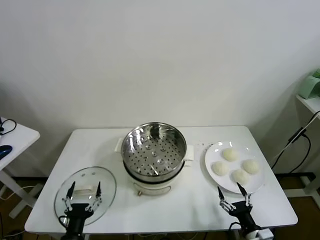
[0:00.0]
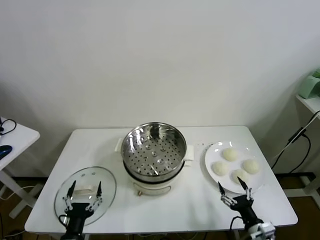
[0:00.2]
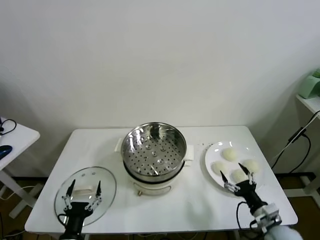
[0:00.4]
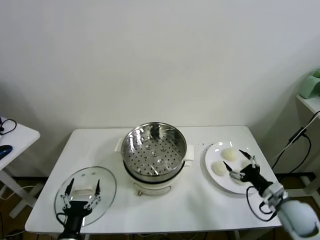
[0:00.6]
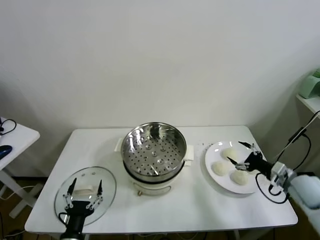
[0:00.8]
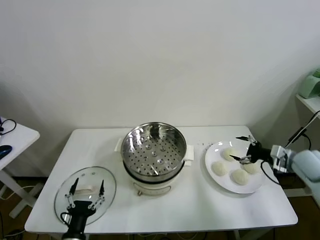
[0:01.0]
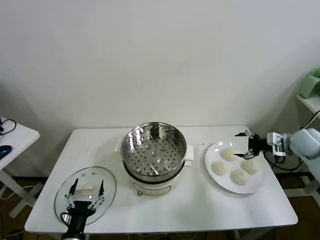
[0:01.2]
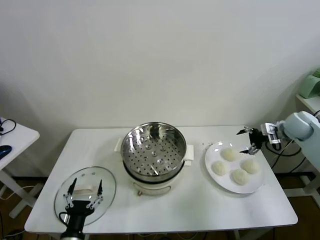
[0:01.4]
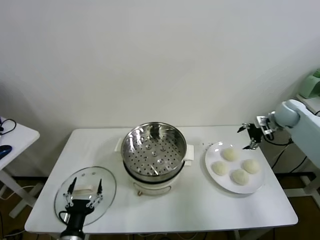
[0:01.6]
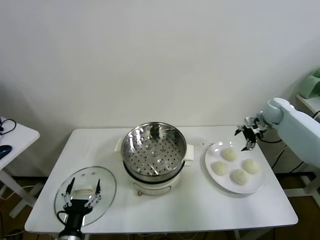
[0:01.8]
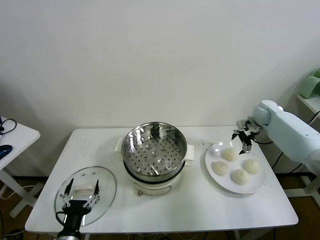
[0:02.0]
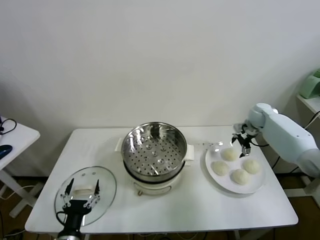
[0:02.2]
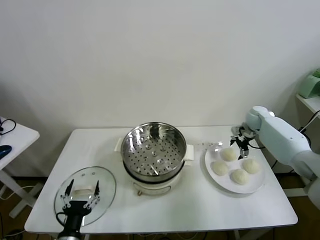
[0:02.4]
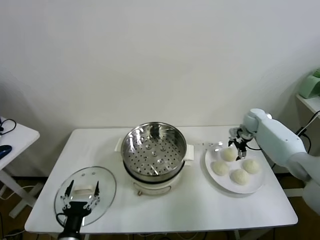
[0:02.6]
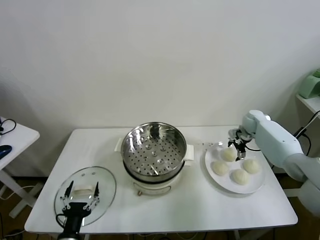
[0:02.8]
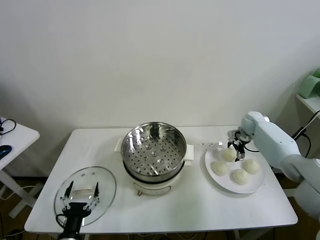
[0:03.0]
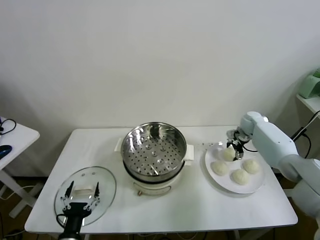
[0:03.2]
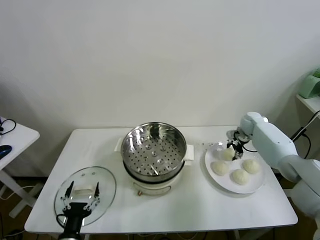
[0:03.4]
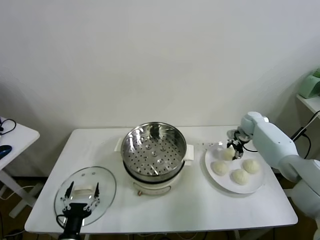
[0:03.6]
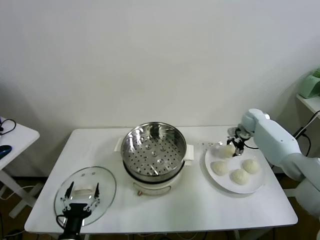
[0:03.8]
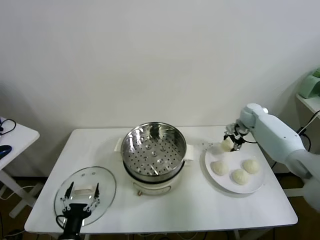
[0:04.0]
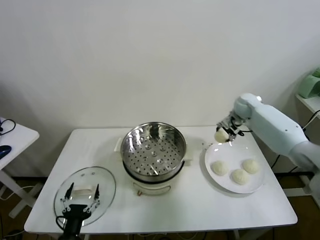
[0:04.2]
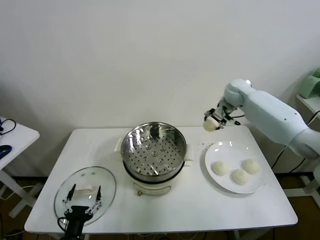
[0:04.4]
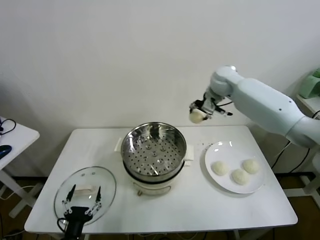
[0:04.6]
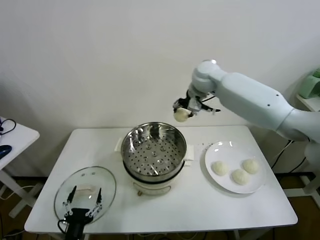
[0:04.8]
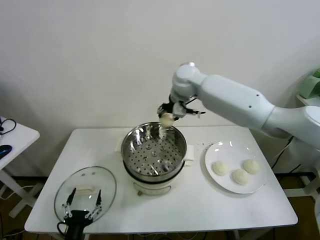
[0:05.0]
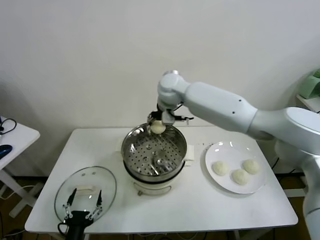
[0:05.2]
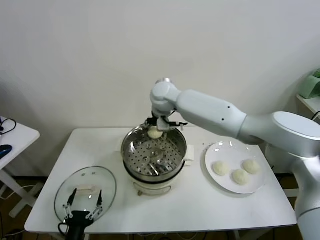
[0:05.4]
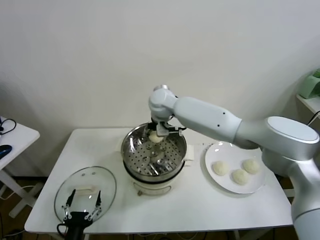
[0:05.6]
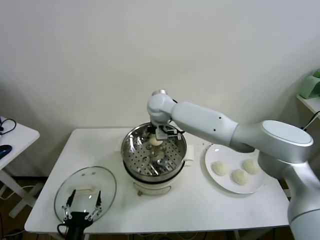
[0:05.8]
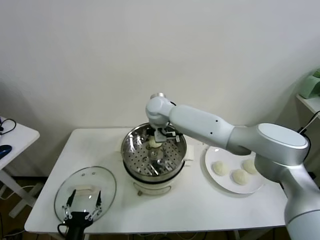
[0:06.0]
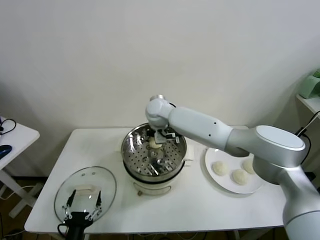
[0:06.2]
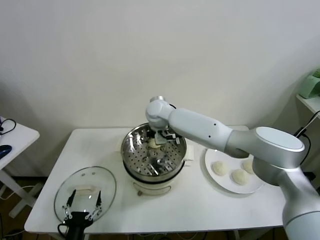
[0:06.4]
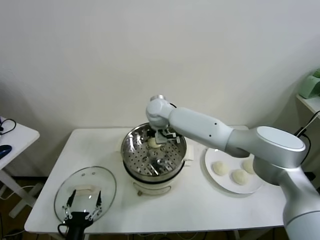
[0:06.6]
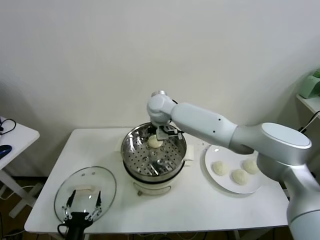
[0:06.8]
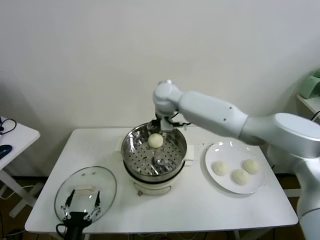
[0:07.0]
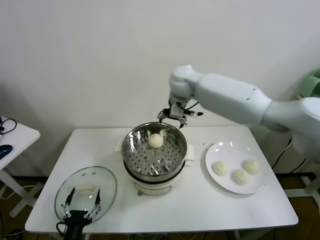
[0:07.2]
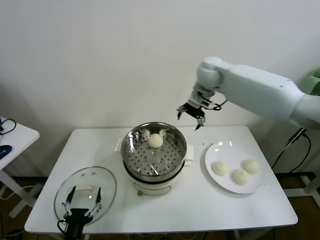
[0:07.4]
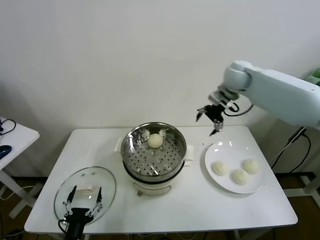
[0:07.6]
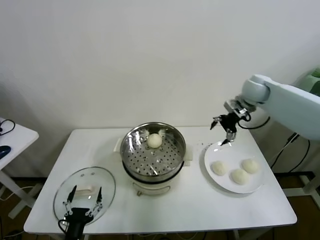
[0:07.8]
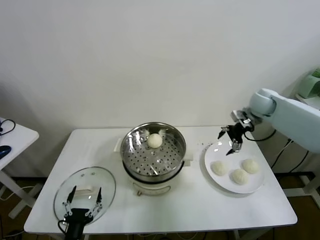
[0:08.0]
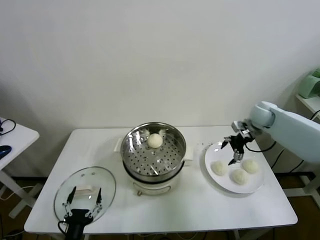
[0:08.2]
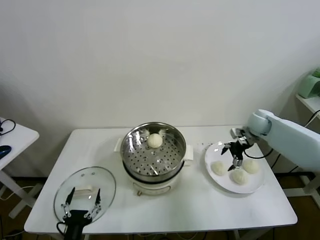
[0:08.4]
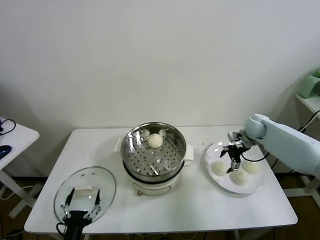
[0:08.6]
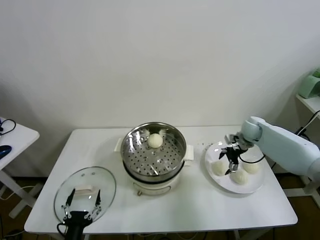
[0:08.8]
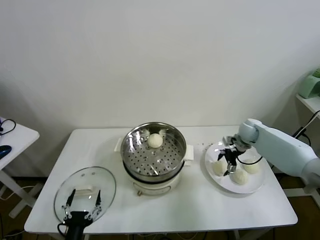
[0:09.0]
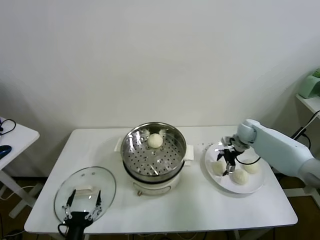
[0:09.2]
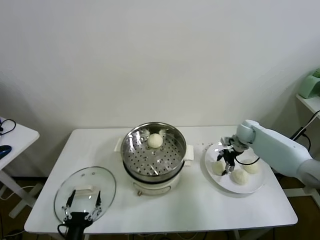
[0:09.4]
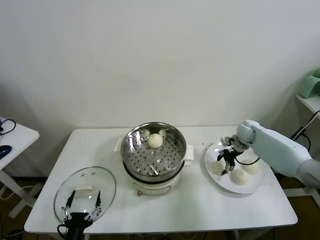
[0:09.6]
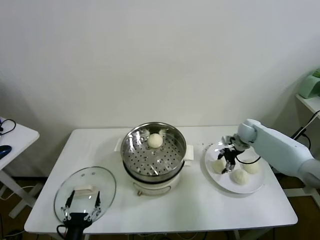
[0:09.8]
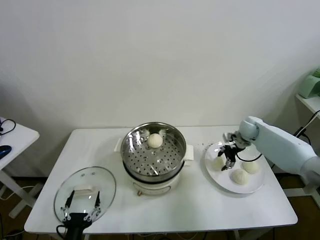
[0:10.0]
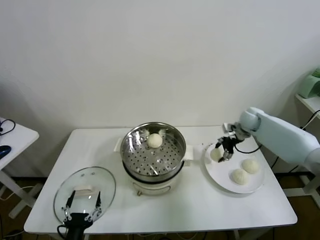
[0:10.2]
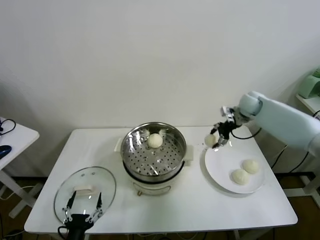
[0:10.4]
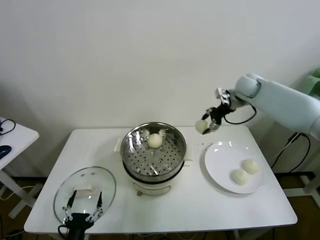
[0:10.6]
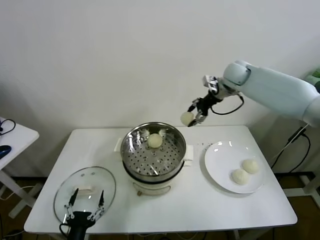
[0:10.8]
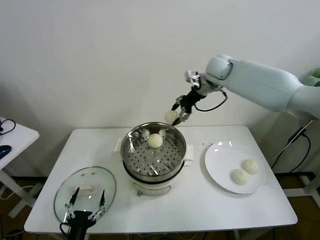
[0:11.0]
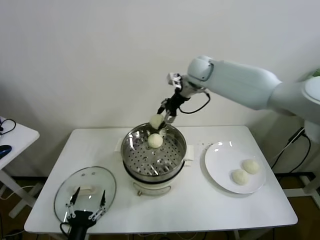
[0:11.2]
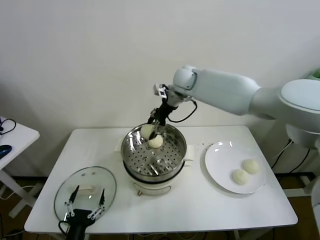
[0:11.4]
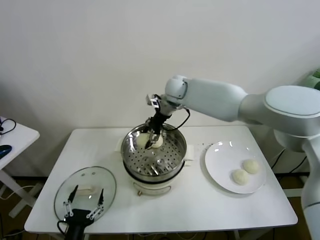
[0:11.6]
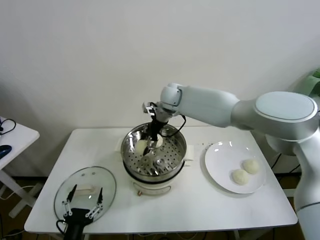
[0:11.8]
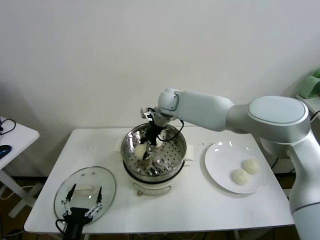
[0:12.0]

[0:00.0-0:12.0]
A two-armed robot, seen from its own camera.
Task of the whole recording: take steamed baozi put them in steamer.
Step, 0.0 to 3.4 s: Grasp the baozi in the plate with right gripper.
Step, 3.6 to 6.6 s: Place the baozi on the steamer with right gripper.
Step, 6.8 to 9.6 s: Grasp the baozi in the plate with right gripper.
1.6 to 3.0 s: The right gripper goes about 10 cm downward and to the left.
3.0 to 4.4 s: The right gripper heads upward and to the left, covering roughly 25 cm, and closes up.
4.4 to 6.0 s: The right gripper is displaced to the left by some 25 cm.
6.0 to 7.6 s: The right gripper is displaced to the right by roughly 30 cm, and opens its fingers.
7.6 to 9.0 s: The right gripper shifts some 20 cm downward.
9.0 to 10.4 s: The right gripper goes approximately 15 cm upward, and closes up.
10.4 to 12.0 s: The right gripper heads to the left, covering roughly 30 cm.

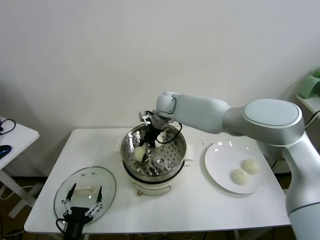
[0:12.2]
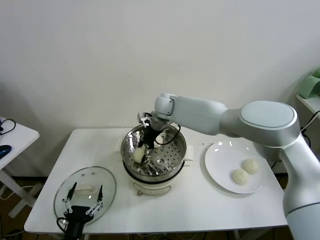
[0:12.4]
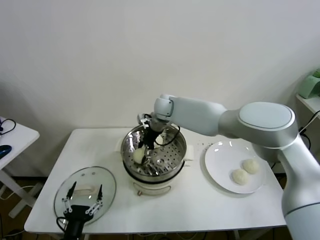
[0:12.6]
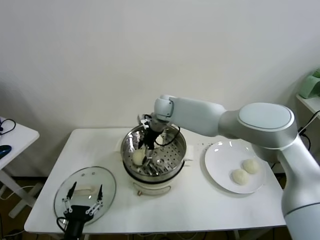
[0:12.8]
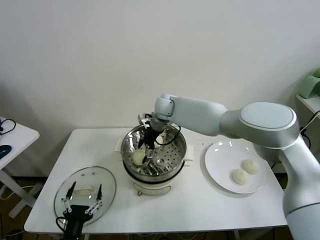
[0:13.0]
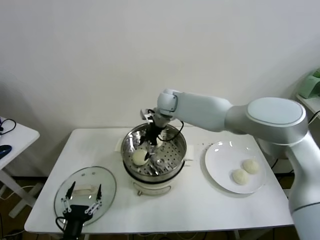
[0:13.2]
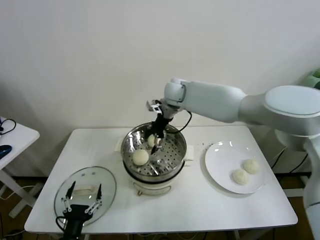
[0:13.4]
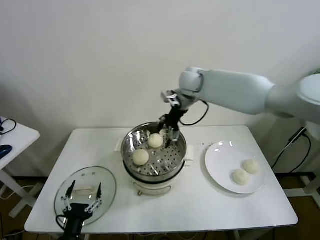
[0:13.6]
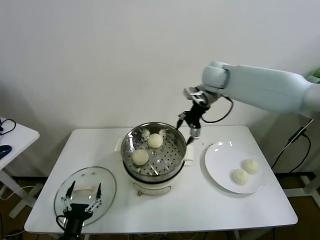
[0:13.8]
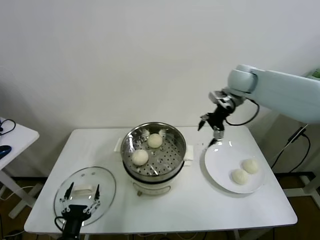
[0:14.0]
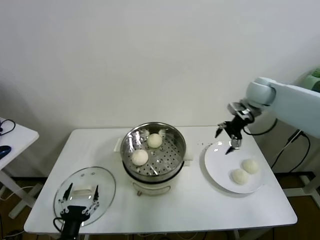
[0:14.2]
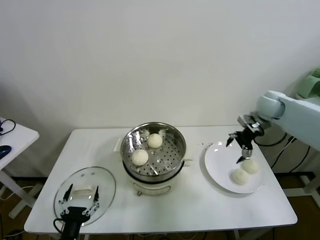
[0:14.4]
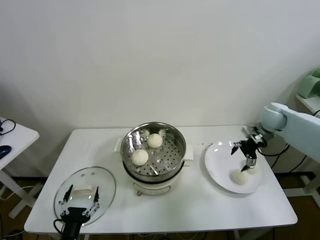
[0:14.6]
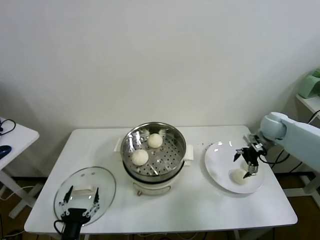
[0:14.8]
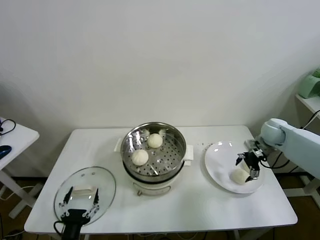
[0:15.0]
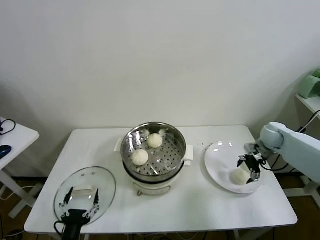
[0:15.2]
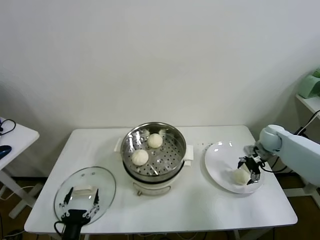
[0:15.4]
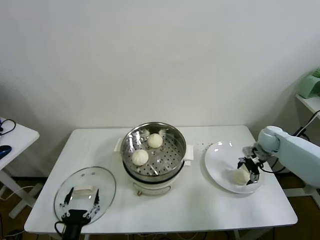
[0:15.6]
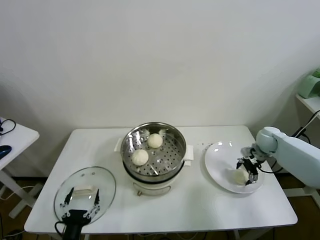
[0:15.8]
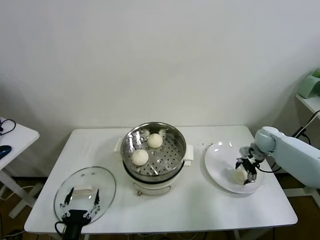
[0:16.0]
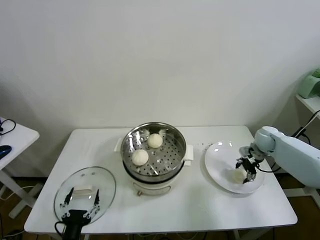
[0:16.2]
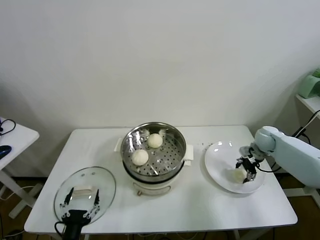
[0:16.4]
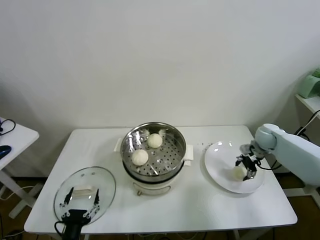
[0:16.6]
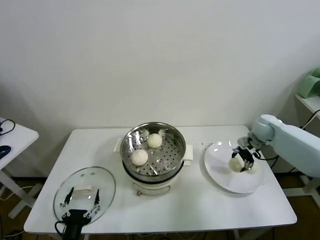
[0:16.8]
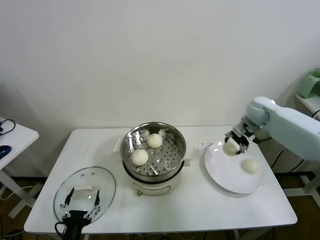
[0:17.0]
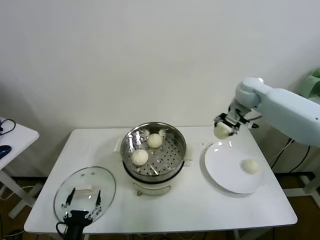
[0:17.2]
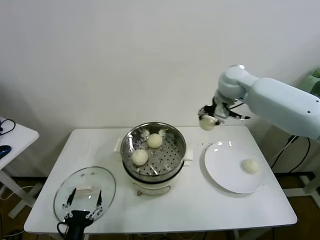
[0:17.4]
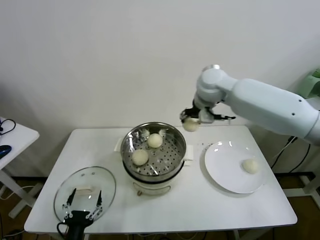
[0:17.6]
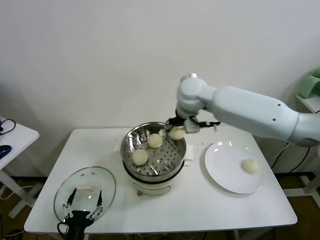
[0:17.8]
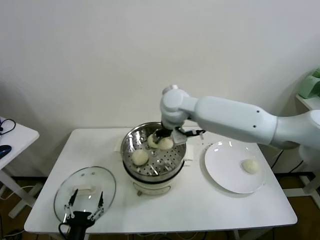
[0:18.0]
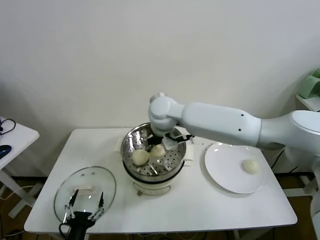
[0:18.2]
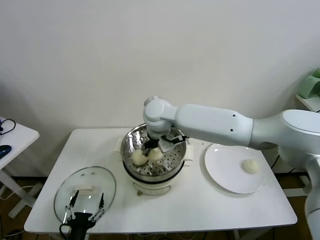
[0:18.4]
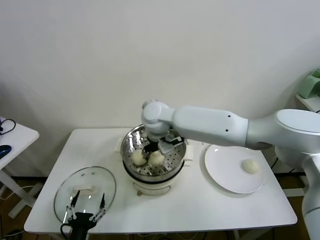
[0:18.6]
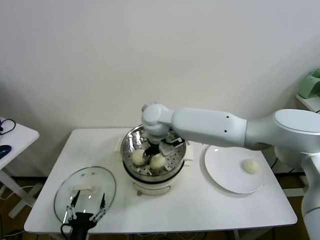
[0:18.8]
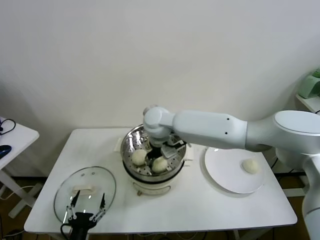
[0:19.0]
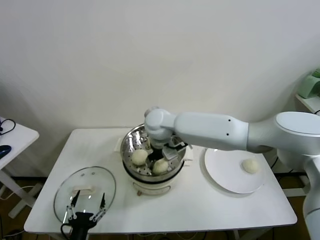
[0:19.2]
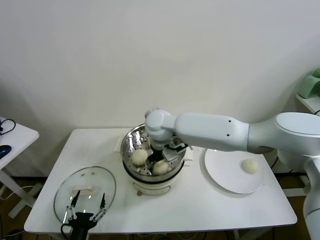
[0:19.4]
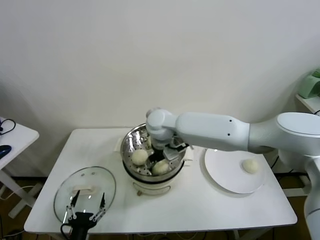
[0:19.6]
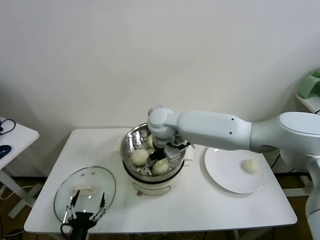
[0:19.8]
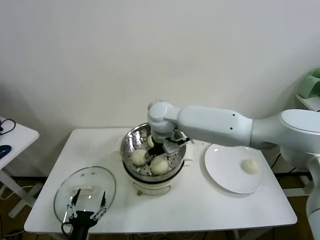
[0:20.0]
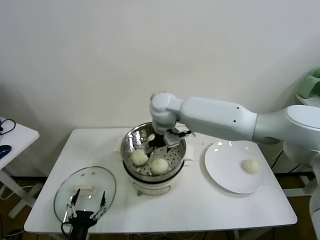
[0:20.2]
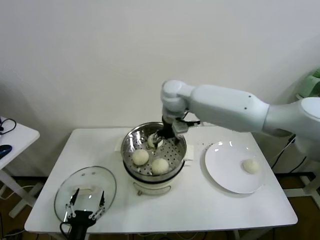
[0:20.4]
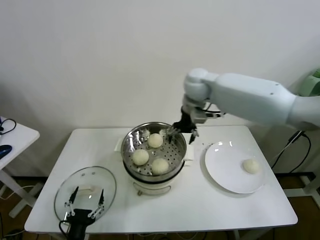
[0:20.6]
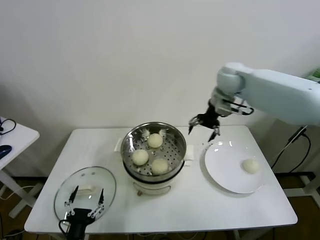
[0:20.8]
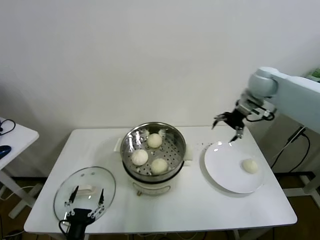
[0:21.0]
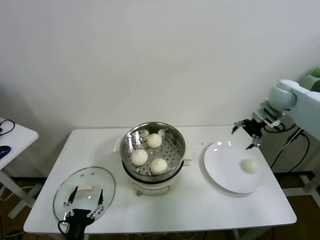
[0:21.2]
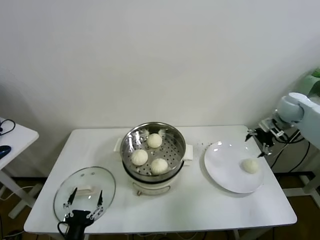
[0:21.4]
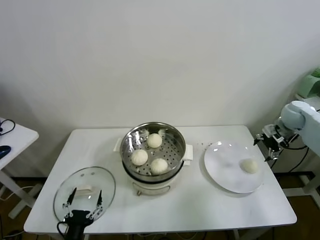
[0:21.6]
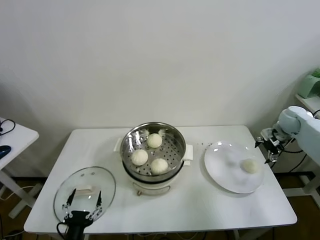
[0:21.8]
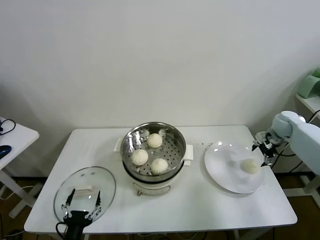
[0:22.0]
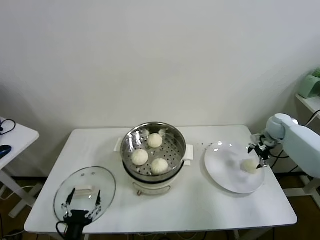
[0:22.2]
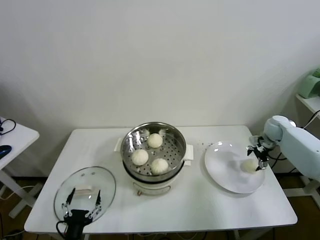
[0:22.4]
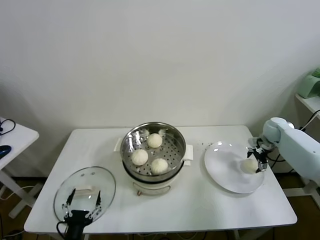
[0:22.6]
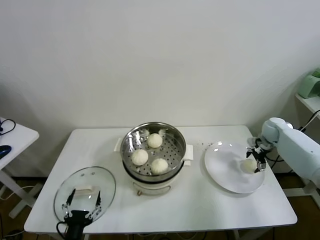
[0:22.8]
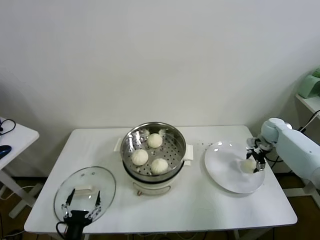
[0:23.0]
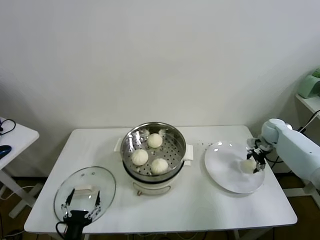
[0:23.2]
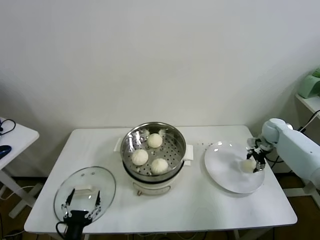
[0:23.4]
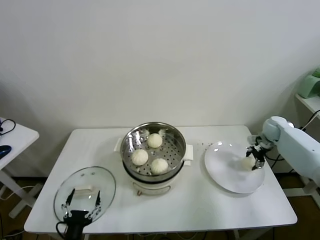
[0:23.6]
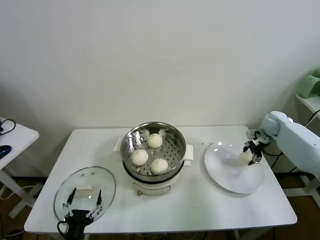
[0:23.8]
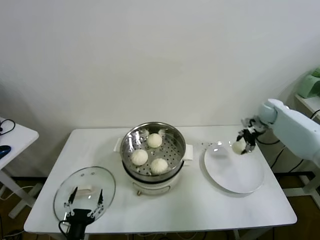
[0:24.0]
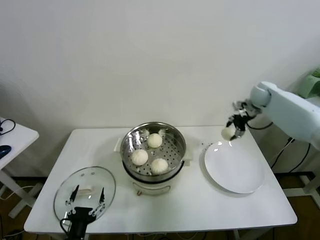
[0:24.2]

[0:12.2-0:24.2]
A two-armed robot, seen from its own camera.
Task of the whole recording: take steamed baozi put them in steamer.
Step, 13.2 to 16.2 s: Grasp the baozi in the plate with right gripper.
Step, 16.6 to 19.8 s: Place the baozi on the steamer with right gripper.
Step, 20.0 to 23.2 s: Grasp the baozi in the plate with right gripper.
12.2 to 13.8 s: The right gripper travels to the right and upward by about 20 cm, and opens.
13.8 to 15.2 s: The right gripper travels to the right and downward by approximately 30 cm.
15.2 to 16.6 s: The right gripper closes up.
16.6 to 18.2 s: The right gripper is displaced to the left and upward by approximately 40 cm.
18.2 to 19.8 s: The right gripper opens its fingers.
19.8 to 21.2 s: The right gripper goes roughly 40 cm to the right.
21.2 to 22.6 s: The right gripper travels downward by roughly 15 cm.
22.6 to 24.2 s: The right gripper is displaced upward, to the left and forward by approximately 15 cm, and closes.
